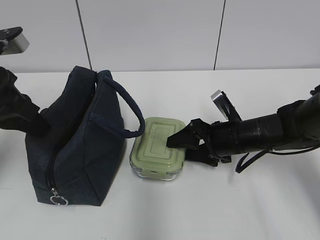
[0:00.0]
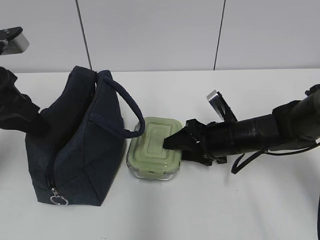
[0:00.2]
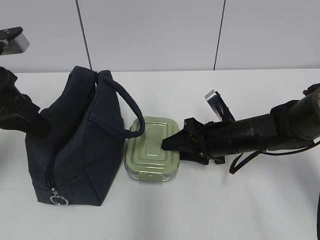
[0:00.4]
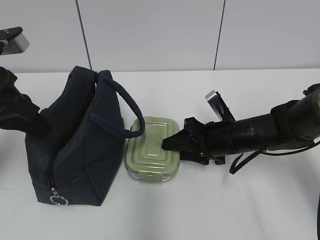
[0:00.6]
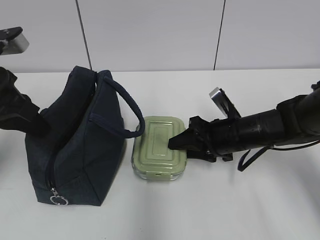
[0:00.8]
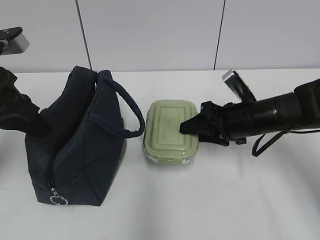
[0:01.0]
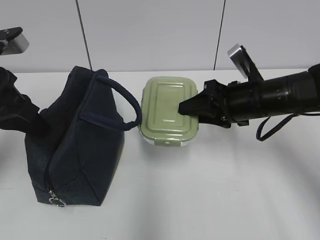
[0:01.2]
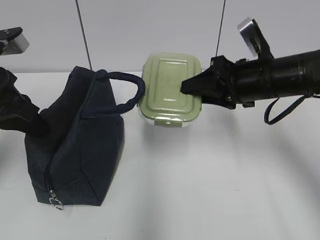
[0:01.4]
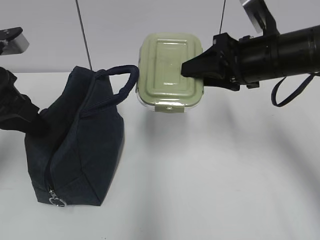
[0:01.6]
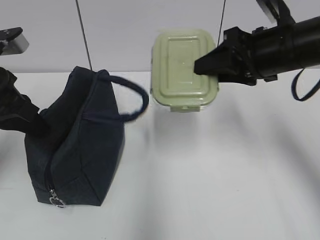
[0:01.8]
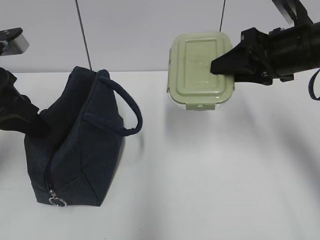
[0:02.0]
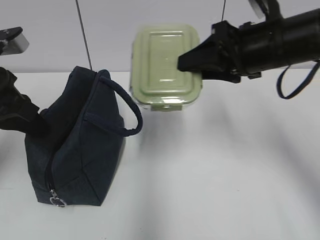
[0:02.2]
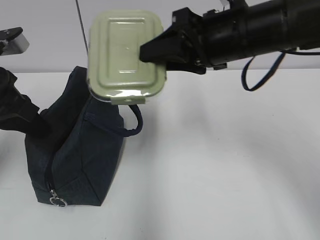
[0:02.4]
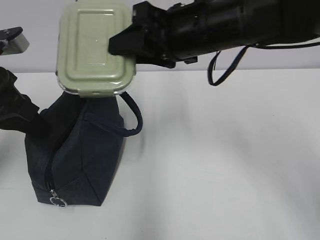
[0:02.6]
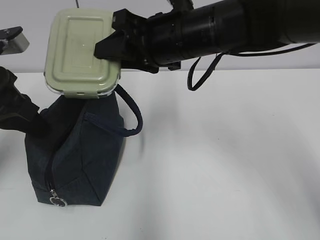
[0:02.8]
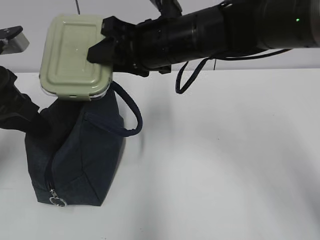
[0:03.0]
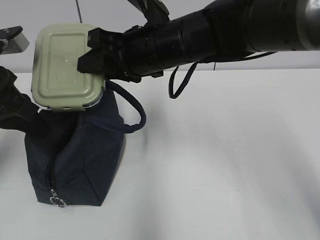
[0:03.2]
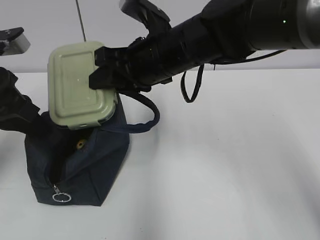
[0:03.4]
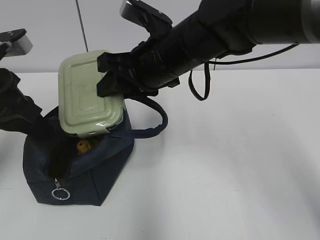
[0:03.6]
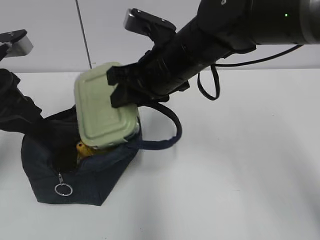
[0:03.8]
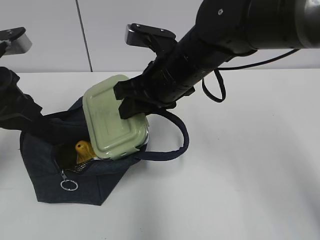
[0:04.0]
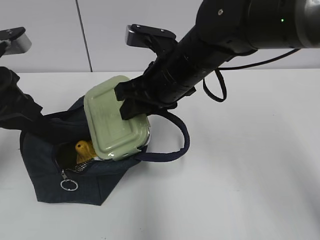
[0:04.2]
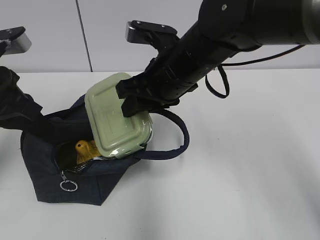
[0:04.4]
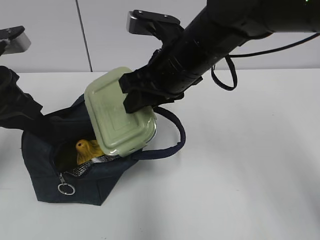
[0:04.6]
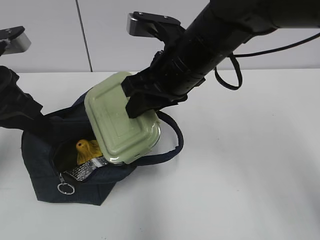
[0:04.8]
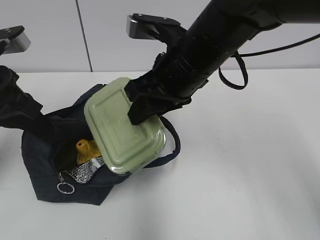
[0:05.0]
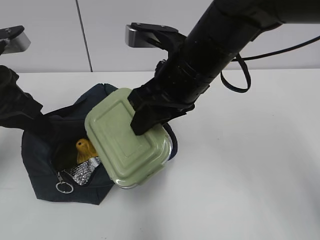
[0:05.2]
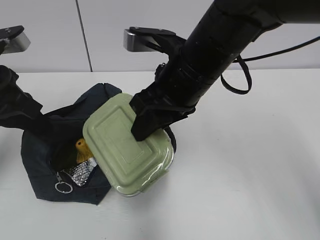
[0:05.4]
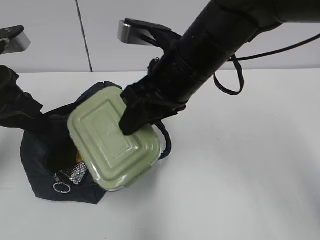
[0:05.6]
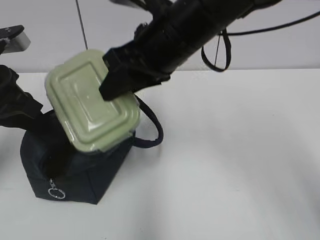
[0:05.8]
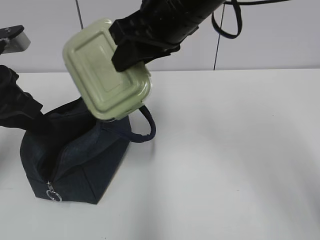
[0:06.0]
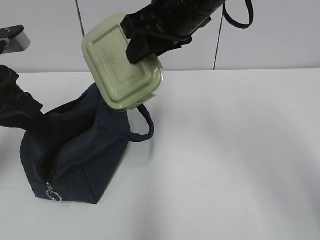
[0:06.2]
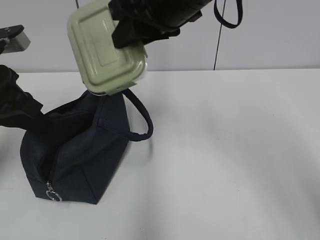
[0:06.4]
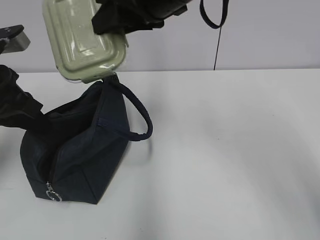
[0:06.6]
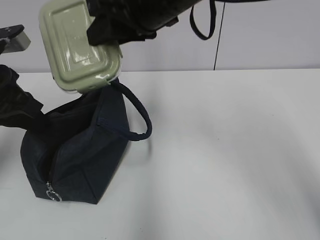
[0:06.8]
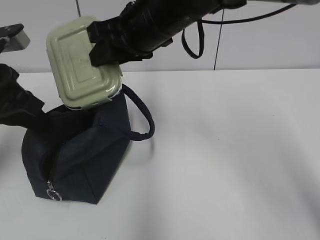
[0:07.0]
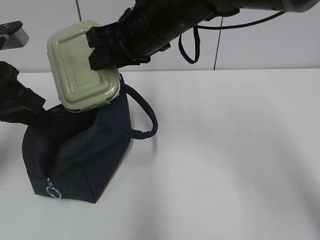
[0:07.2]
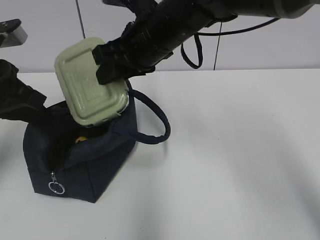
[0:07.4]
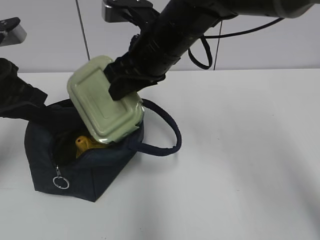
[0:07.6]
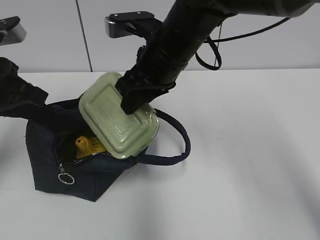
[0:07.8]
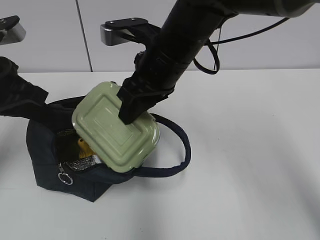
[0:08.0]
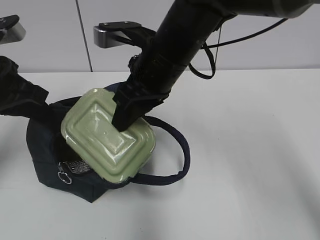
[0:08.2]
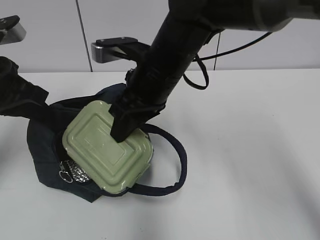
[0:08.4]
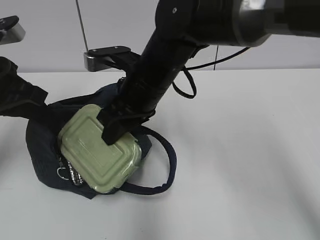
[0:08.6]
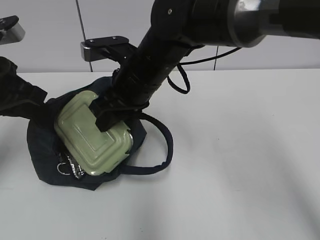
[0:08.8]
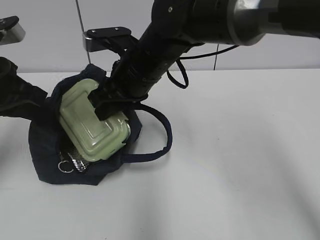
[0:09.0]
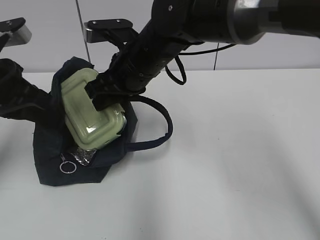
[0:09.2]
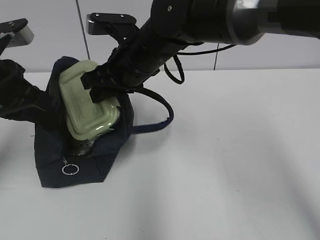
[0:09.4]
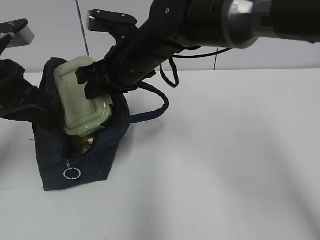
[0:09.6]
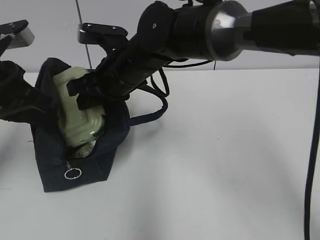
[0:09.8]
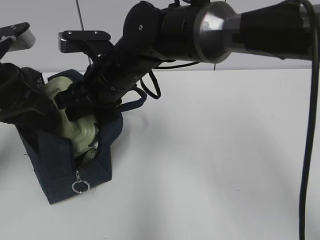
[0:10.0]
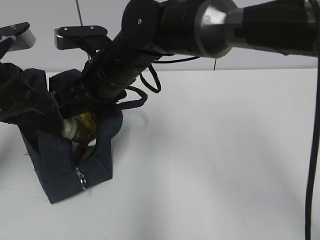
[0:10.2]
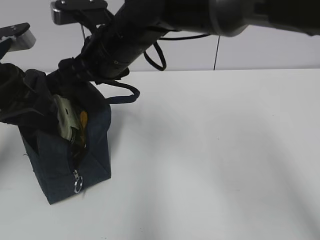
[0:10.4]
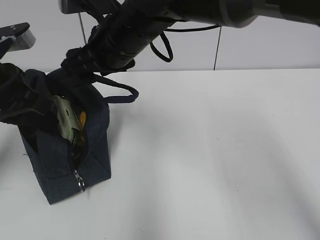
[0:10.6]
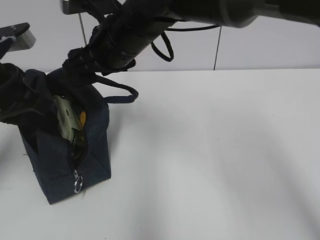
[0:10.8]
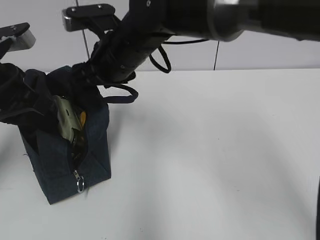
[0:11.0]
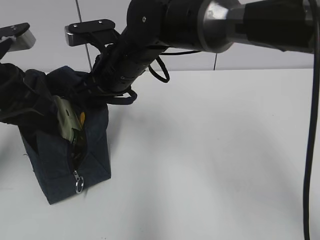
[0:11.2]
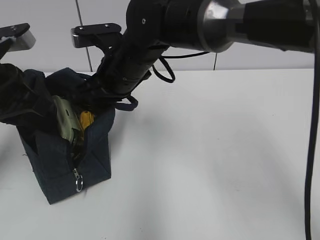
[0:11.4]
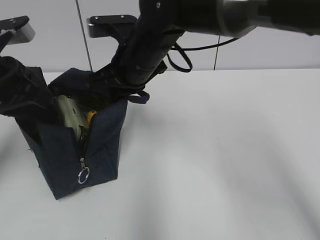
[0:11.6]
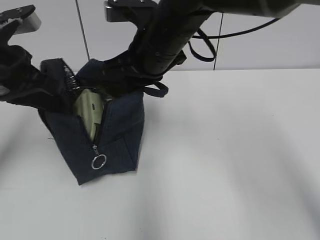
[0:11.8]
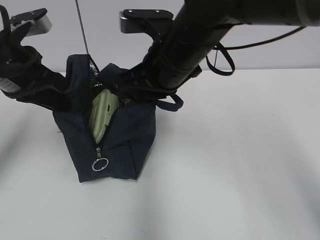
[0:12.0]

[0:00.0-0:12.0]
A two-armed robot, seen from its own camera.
0:00.0 to 0:01.6: The right gripper heads upward, covering some 15 cm, and closes.
0:01.6 to 0:03.0: The right gripper heads to the left, covering roughly 15 cm.
0:04.4 to 0:06.0: The right gripper heads upward, covering roughly 10 cm.
0:06.0 to 0:07.6: The right gripper goes roughly 5 cm downward.
0:07.6 to 0:09.0: The right gripper changes place by approximately 5 cm.
0:09.0 to 0:10.4: The right gripper opens.
0:10.4 to 0:12.0: The right gripper is displaced to the right by roughly 10 cm, and closes.

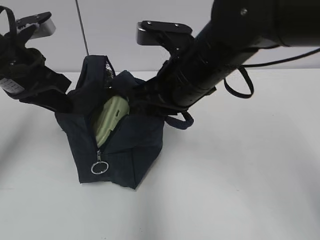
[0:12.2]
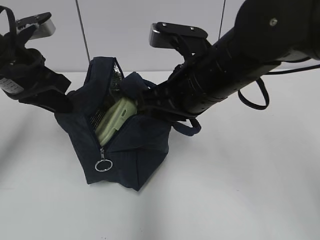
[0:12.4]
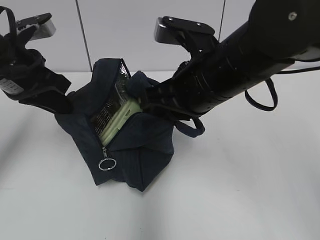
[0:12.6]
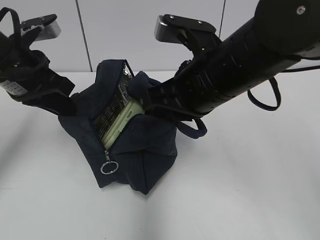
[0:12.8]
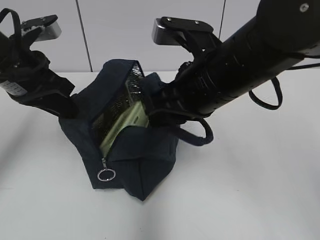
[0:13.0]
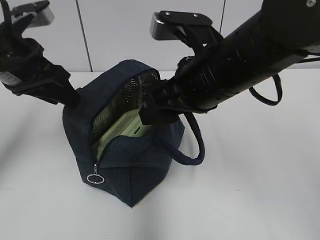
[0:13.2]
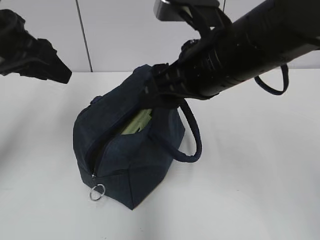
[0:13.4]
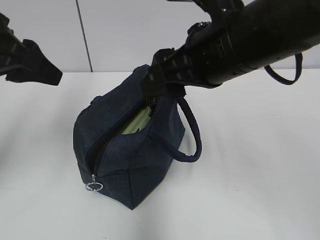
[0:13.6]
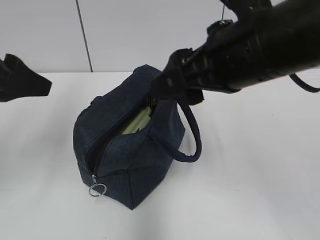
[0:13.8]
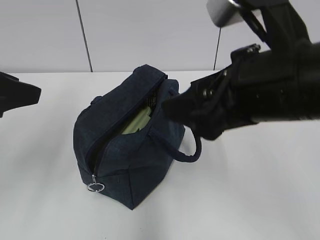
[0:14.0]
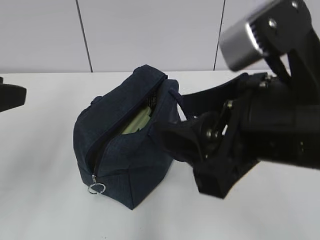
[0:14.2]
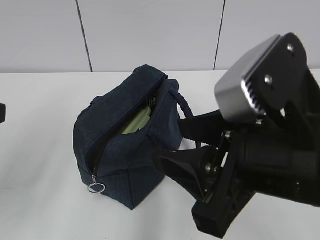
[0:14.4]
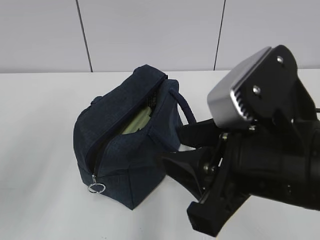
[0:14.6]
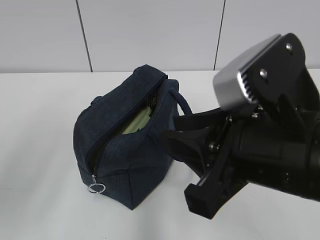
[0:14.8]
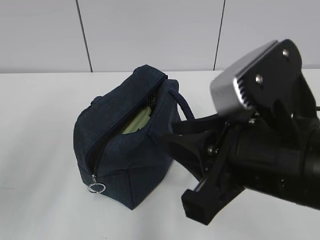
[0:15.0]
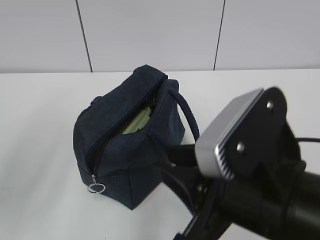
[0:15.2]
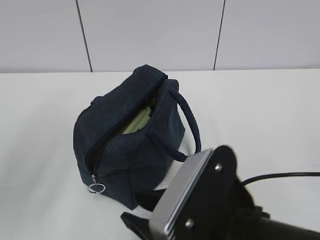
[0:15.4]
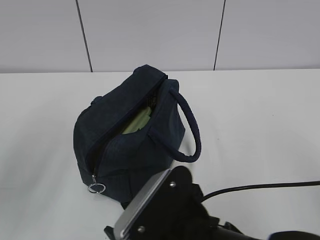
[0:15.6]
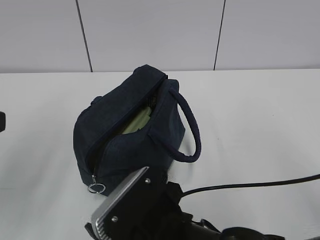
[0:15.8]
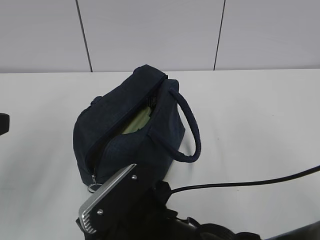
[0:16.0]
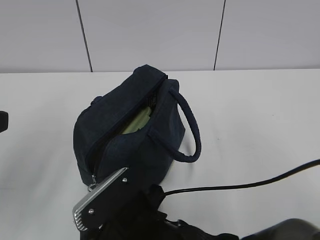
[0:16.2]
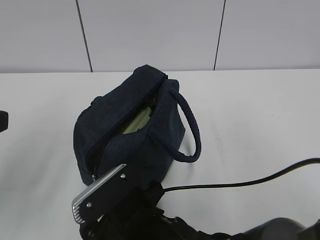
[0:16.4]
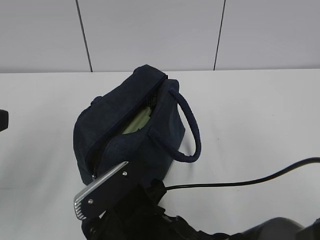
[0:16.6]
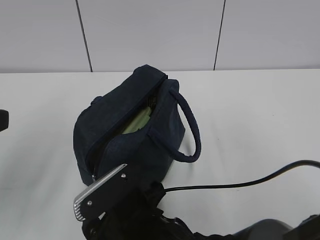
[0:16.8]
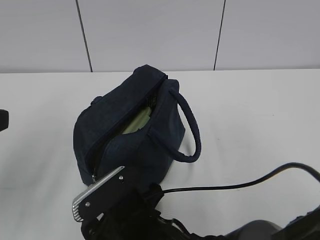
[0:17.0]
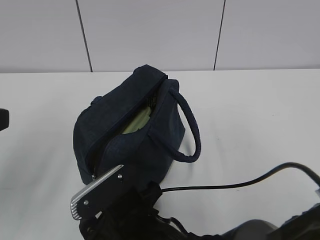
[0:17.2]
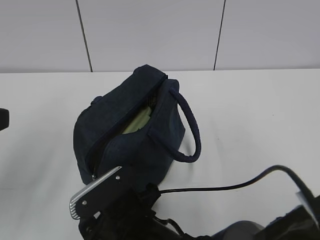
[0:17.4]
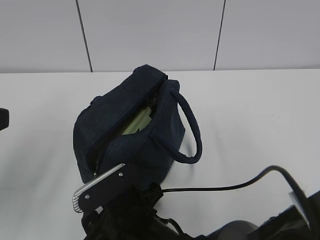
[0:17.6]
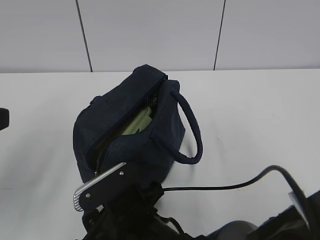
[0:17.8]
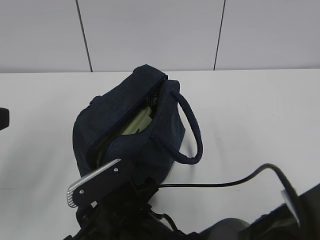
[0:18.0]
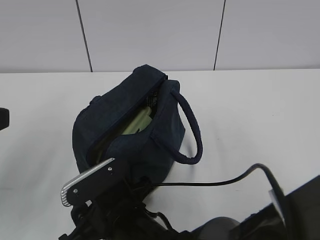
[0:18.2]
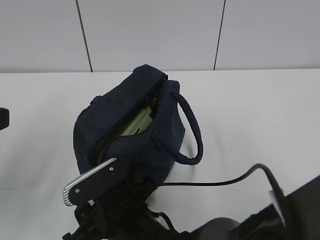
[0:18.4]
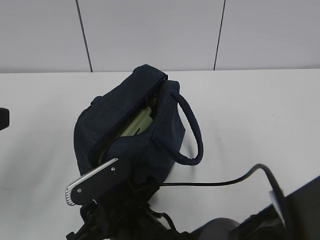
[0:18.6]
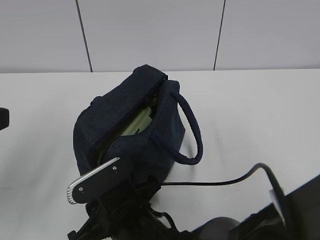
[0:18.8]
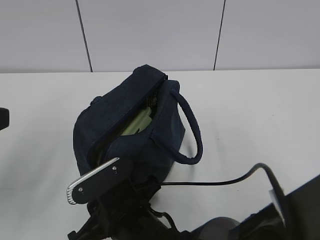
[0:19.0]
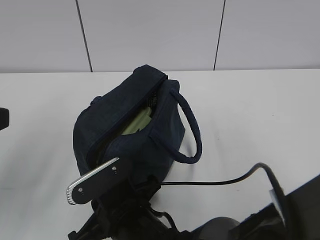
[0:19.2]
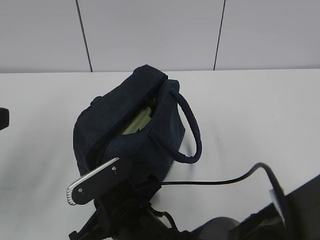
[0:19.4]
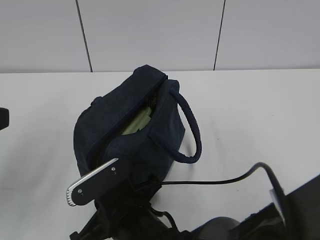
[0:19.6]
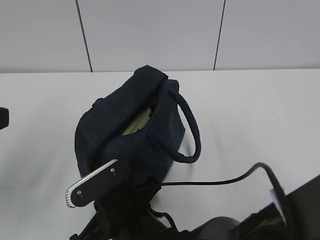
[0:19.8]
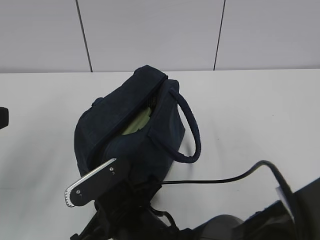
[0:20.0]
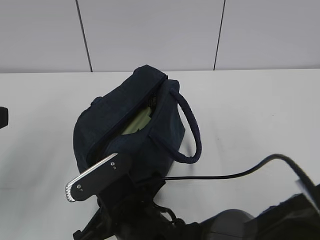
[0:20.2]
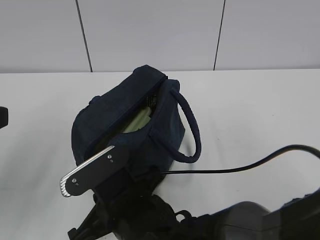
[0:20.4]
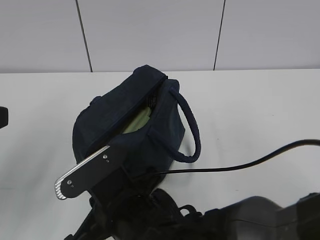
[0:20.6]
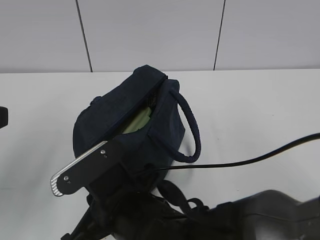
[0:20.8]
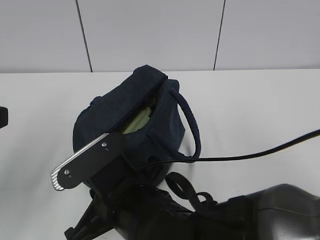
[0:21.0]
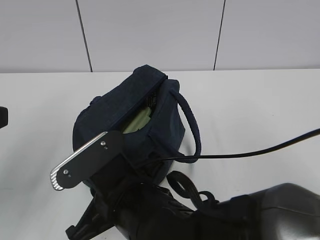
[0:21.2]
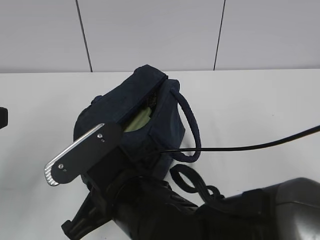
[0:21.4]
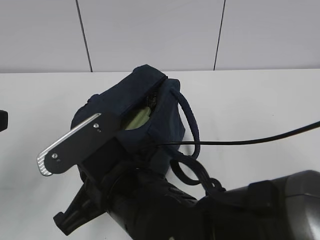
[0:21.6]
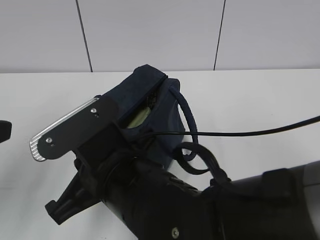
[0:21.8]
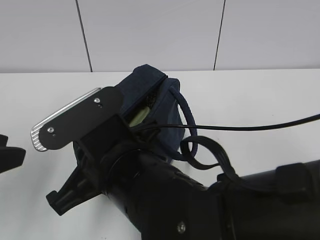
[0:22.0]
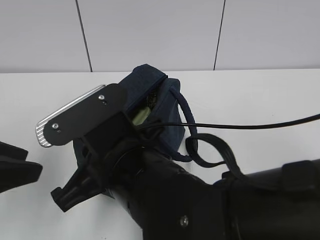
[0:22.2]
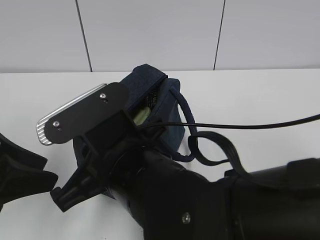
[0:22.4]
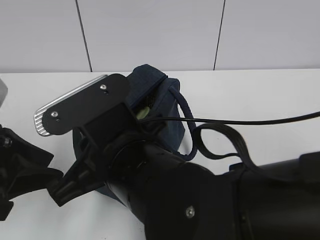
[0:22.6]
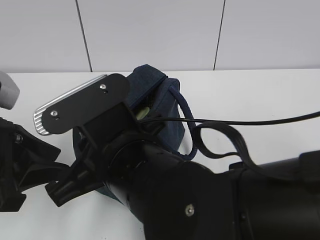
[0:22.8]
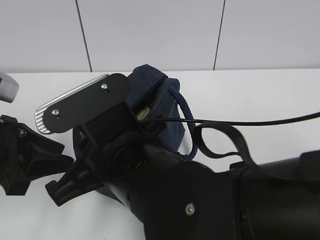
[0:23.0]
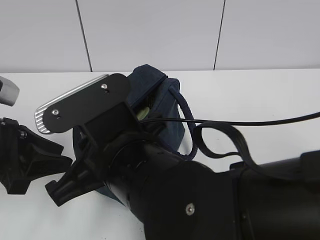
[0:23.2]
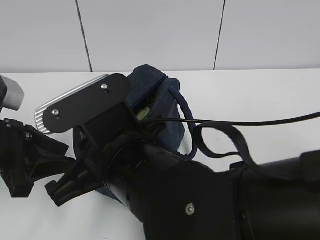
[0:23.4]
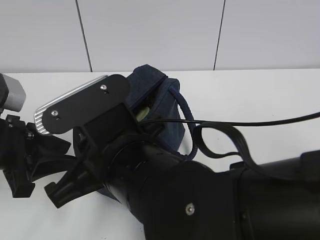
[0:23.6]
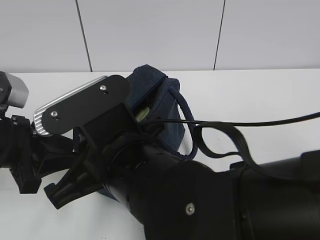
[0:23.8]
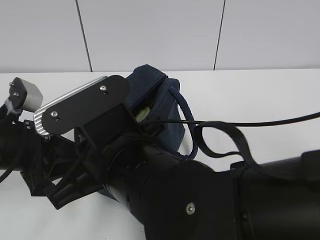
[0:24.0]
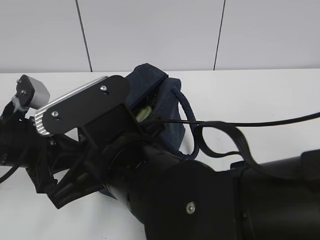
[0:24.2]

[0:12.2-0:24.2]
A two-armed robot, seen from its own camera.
0:12.2 to 0:13.8: The right gripper moves backward and upward, roughly 10 cm, and opens, while the left gripper moves backward, about 10 cm, and opens.
0:13.8 to 0:15.2: The left gripper is displaced backward by roughly 10 cm, while the right gripper travels backward and downward by approximately 15 cm, and closes.
0:15.2 to 0:16.6: The right gripper goes some 15 cm downward and to the left, and opens its fingers.
0:16.6 to 0:18.2: The grippers make only small movements.
0:18.2 to 0:19.8: The right gripper closes its fingers.
0:19.8 to 0:21.2: The right gripper is displaced upward by approximately 5 cm.
0:21.2 to 0:22.6: The left gripper shifts roughly 5 cm downward. Meanwhile the right gripper travels upward by approximately 5 cm.
0:22.6 to 0:24.2: The left gripper shifts approximately 10 cm forward and downward, and closes.
